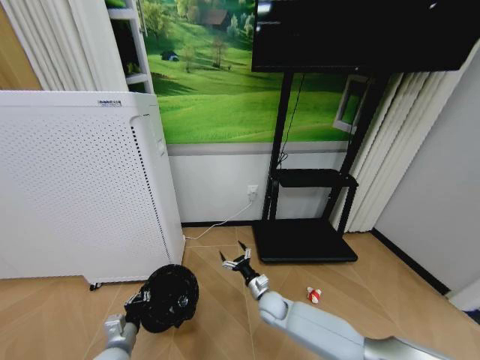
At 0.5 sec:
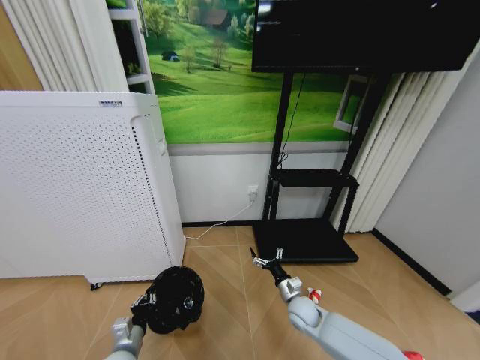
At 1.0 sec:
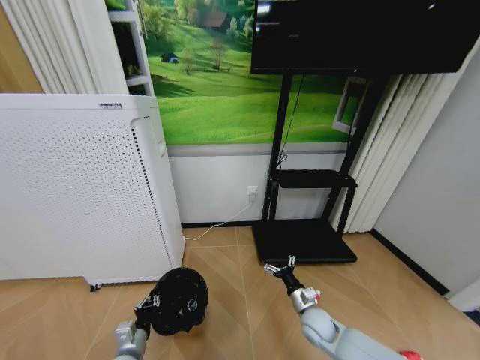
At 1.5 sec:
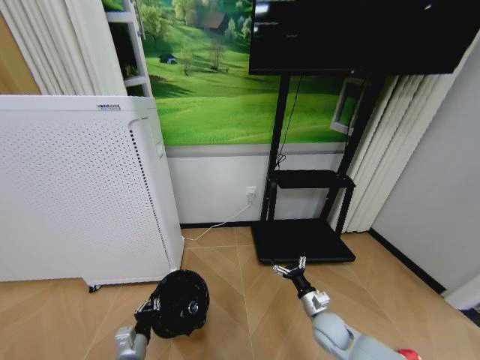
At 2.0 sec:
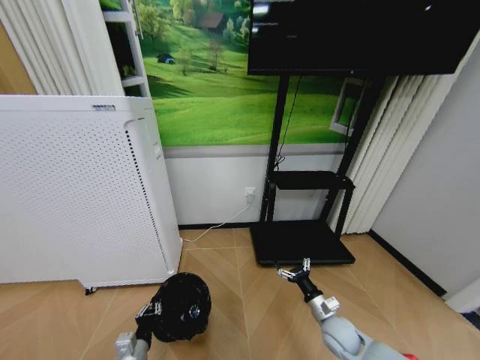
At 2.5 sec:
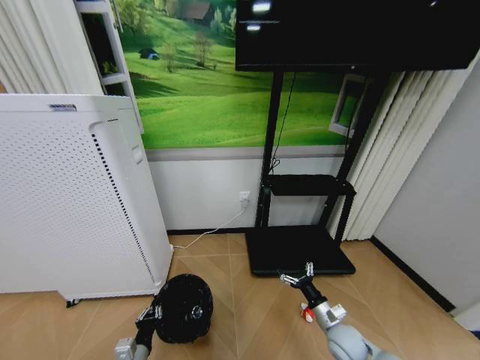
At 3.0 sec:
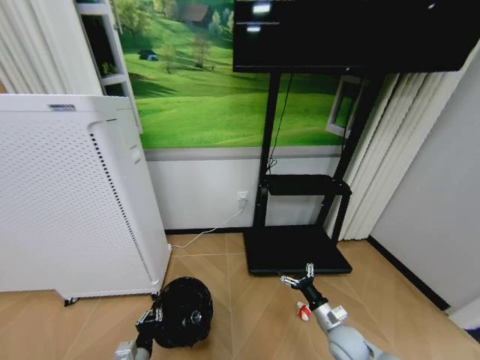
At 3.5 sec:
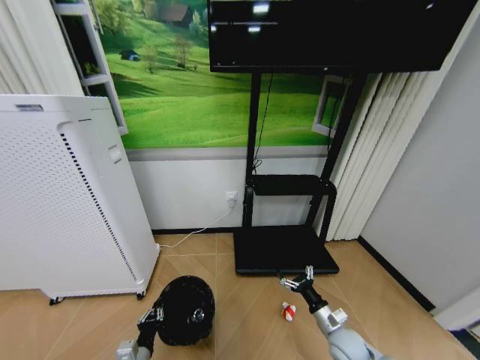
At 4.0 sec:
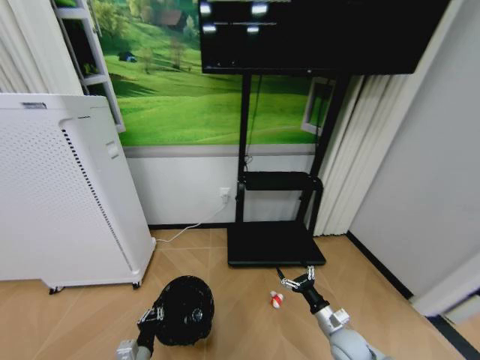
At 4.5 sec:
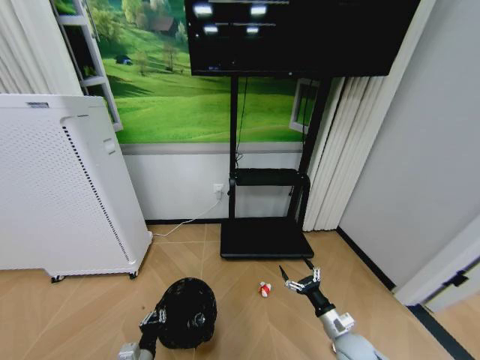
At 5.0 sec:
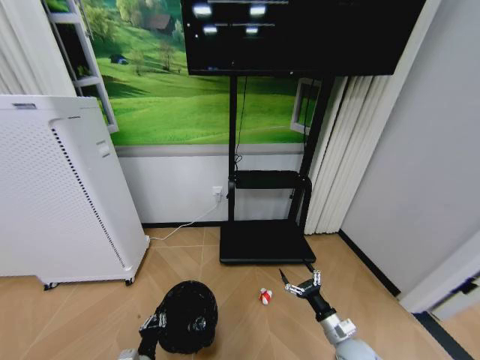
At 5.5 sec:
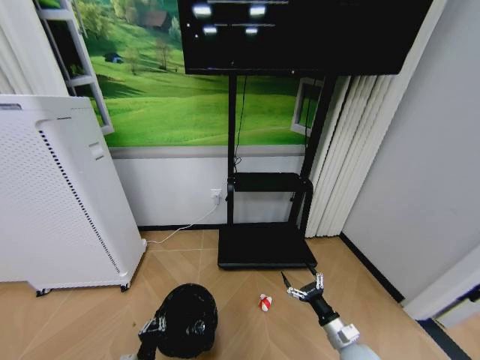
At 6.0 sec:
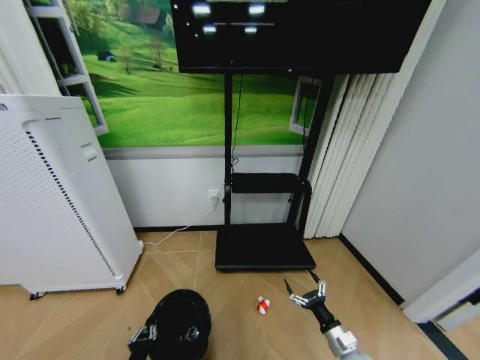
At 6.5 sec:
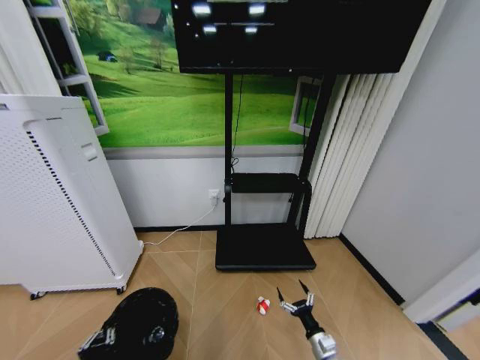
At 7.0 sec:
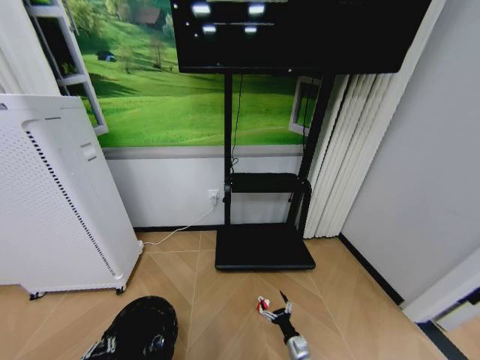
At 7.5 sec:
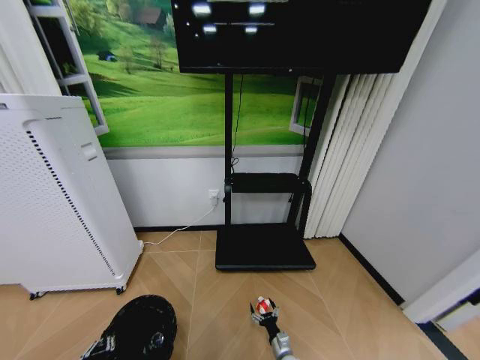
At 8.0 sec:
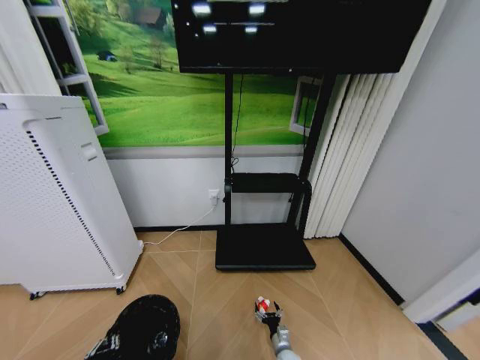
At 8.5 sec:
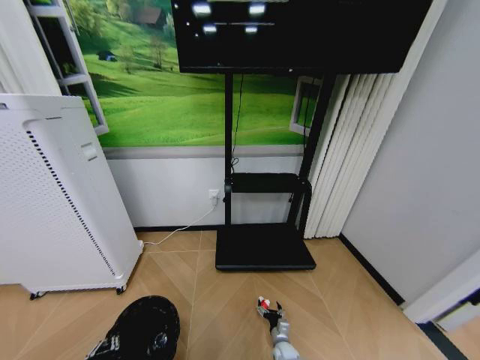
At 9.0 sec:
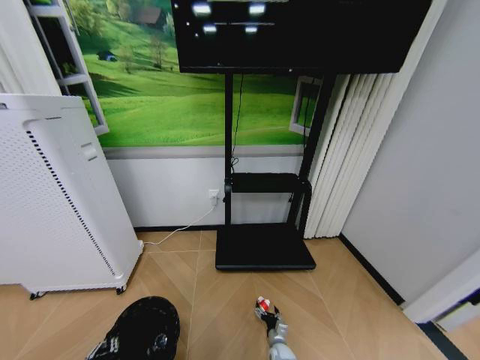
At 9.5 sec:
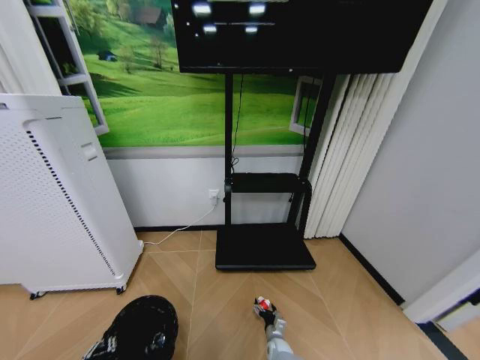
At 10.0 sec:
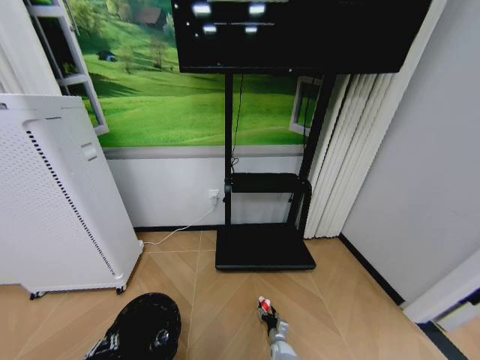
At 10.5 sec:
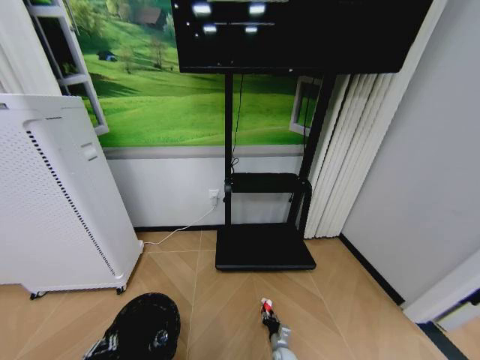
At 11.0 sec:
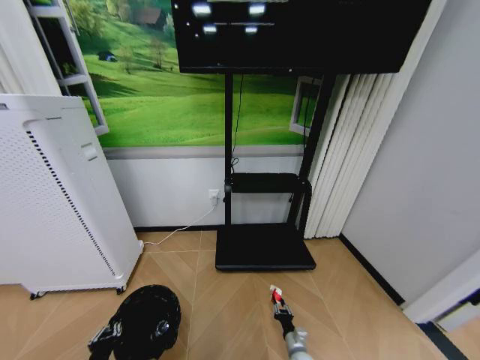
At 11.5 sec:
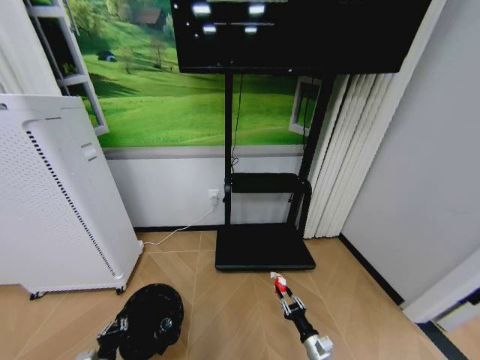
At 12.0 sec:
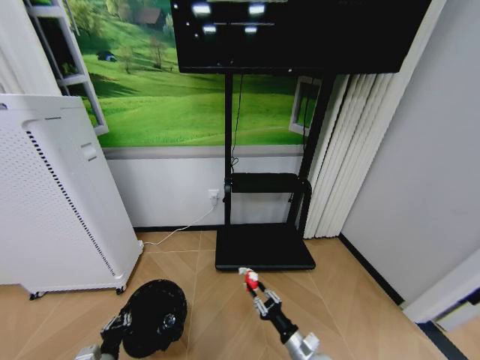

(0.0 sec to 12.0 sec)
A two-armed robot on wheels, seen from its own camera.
Task of the whole recording: Pick up the trash bin and place the garbage on the floor into it.
0.0 sec - 2.0 sec: The left gripper ends up approximately 5 cm from where it was, while the right gripper moves to the right, about 20 cm.
4.0 sec - 6.0 sec: The left gripper ends up some 5 cm from where it was. Meanwhile the right gripper changes place by some 5 cm.
6.0 sec - 8.0 sec: The left gripper shifts roughly 5 cm to the left; the right gripper shifts about 25 cm downward and to the left.
10.0 sec - 12.0 sec: The right gripper travels upward by roughly 25 cm, and closes its fingers, while the left gripper heads forward, covering some 5 cm.

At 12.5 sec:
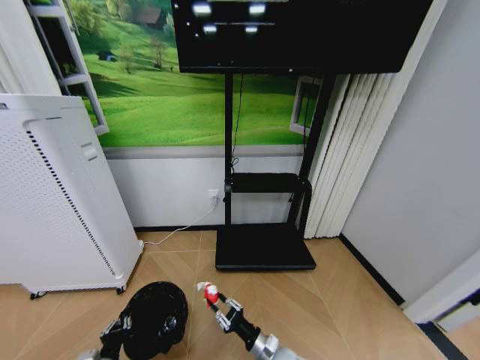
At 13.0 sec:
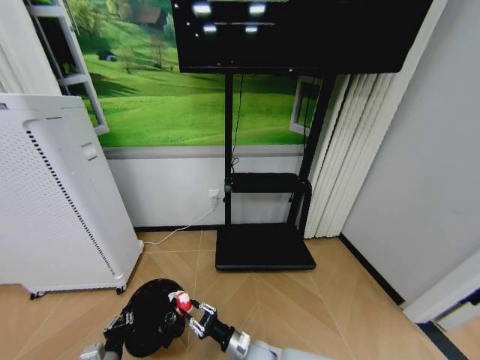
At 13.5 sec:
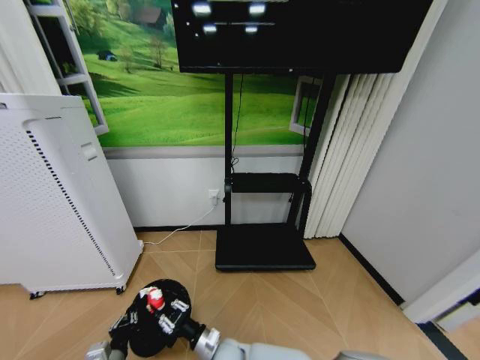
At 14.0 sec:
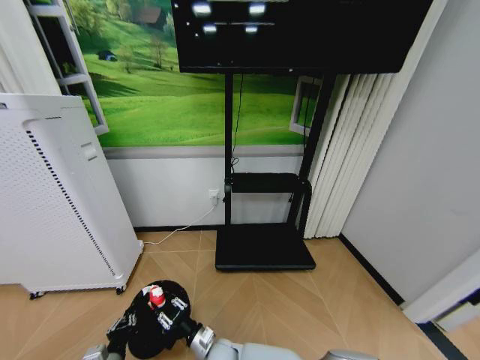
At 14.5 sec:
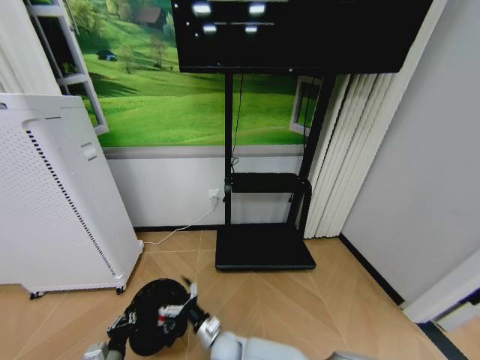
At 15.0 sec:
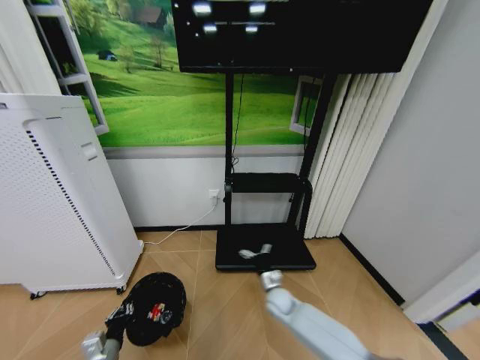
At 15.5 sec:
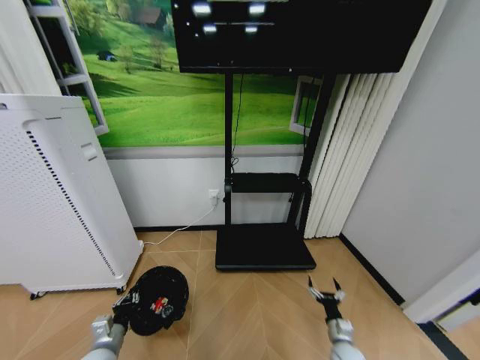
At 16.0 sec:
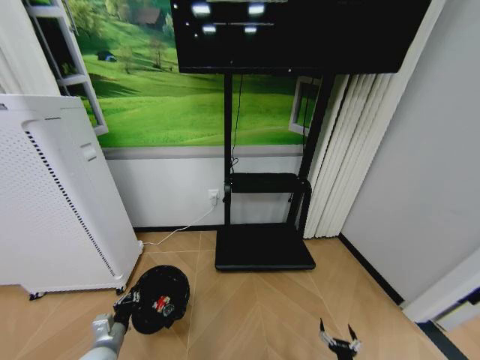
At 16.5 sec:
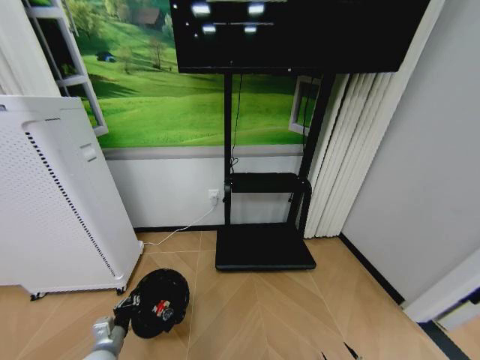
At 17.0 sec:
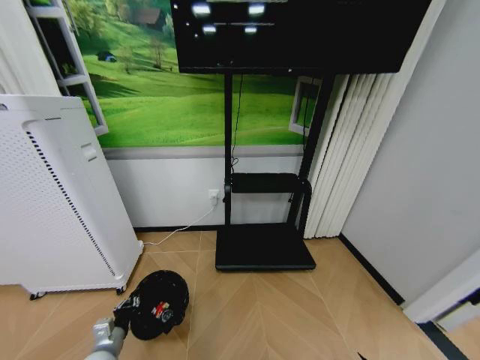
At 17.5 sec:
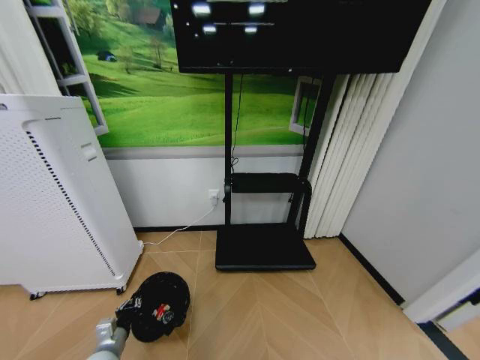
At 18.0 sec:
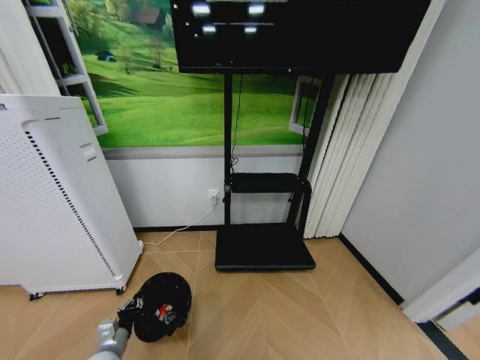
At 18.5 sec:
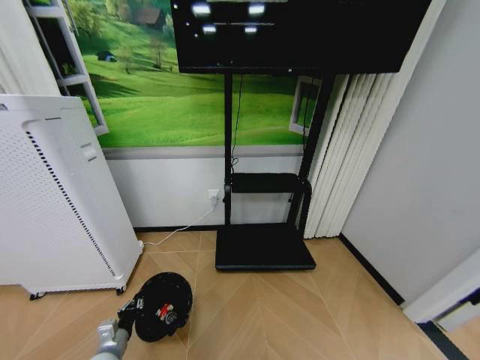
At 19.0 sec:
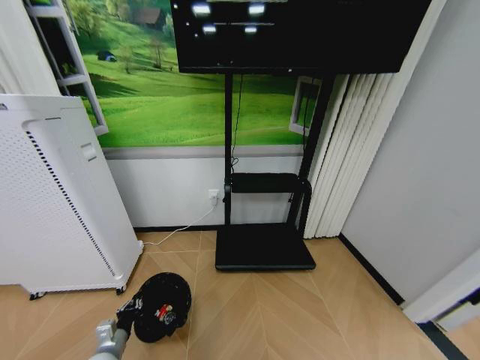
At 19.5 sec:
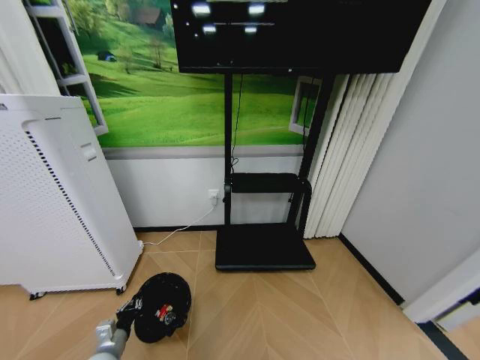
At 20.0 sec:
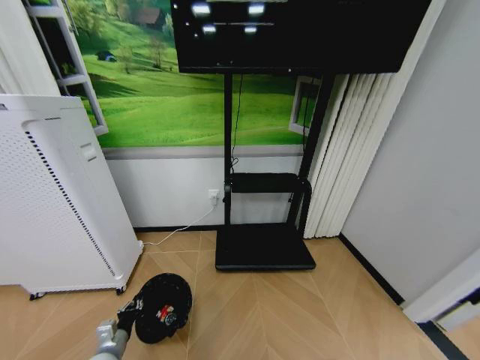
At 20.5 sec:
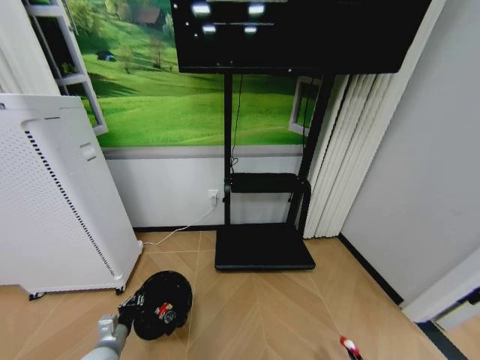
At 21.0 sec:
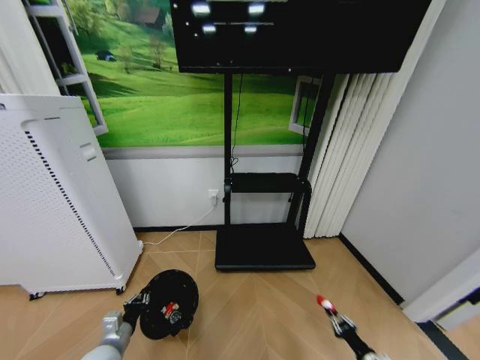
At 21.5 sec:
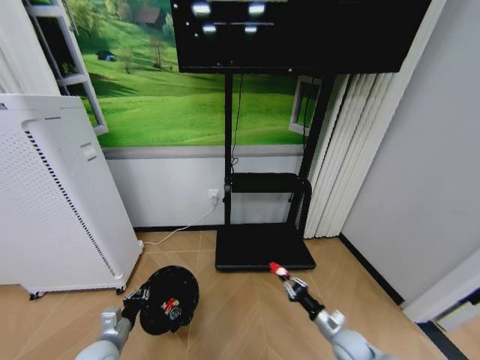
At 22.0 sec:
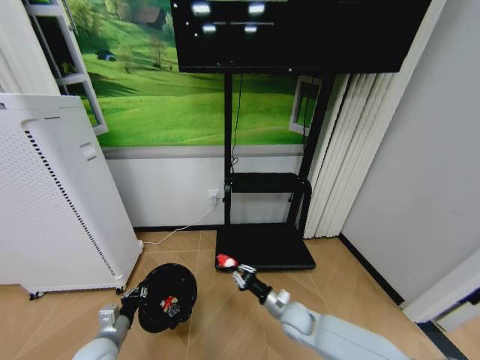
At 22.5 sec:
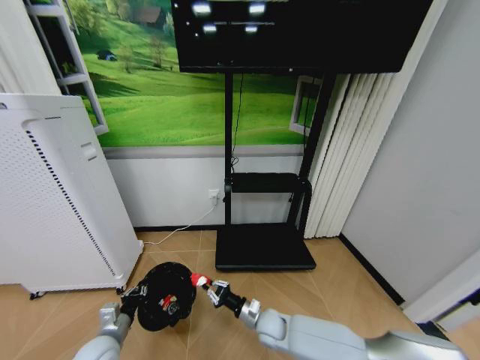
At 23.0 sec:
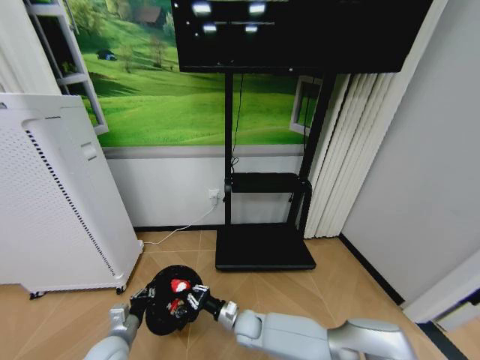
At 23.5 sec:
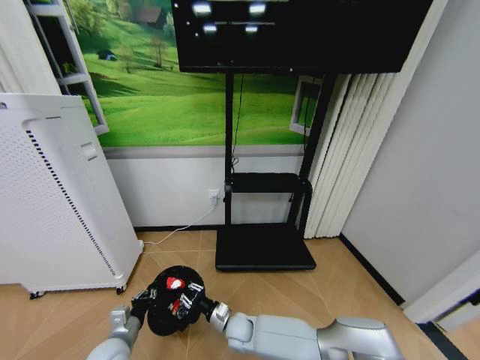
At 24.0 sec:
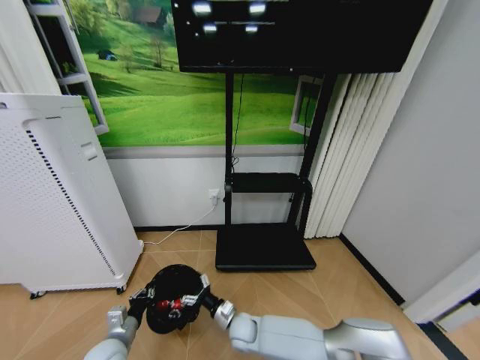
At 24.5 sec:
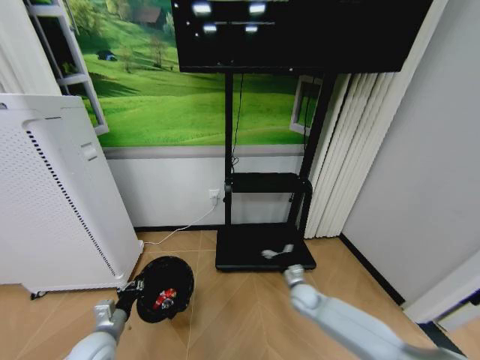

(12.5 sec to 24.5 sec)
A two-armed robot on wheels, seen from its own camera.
Task of the whole recording: Pick up the trash bin and place the garbage on the floor into it.
12.5 sec - 14.5 sec: The right gripper moves to the left, approximately 20 cm, and opens its fingers.
14.5 sec - 16.5 sec: The left gripper travels forward by approximately 5 cm. The right gripper moves to the right, approximately 50 cm.
16.5 sec - 18.5 sec: The right gripper heads downward and backward, covering approximately 10 cm.
20.5 sec - 22.5 sec: The right gripper moves to the left, forward and upward, roughly 50 cm.
22.5 sec - 24.5 sec: The right gripper moves to the right and forward, about 15 cm, and opens.

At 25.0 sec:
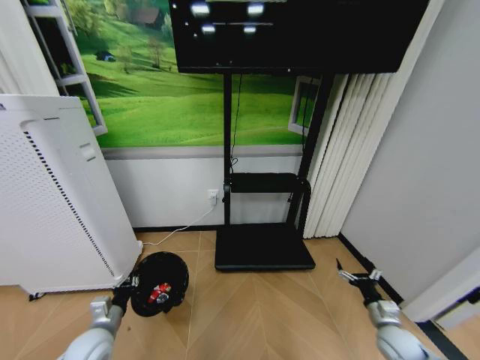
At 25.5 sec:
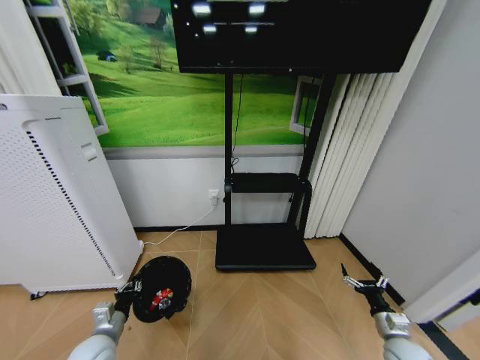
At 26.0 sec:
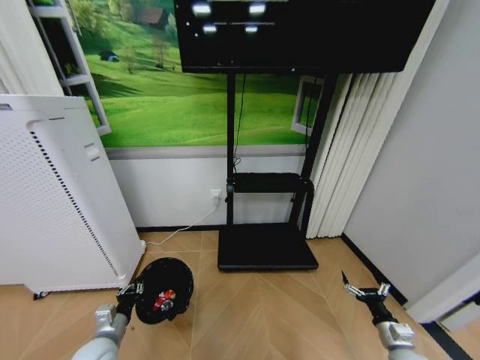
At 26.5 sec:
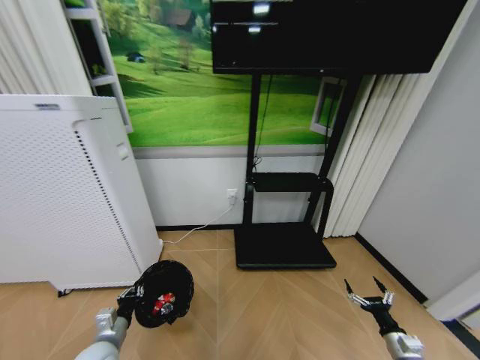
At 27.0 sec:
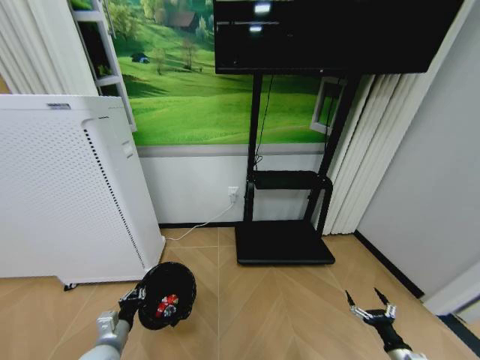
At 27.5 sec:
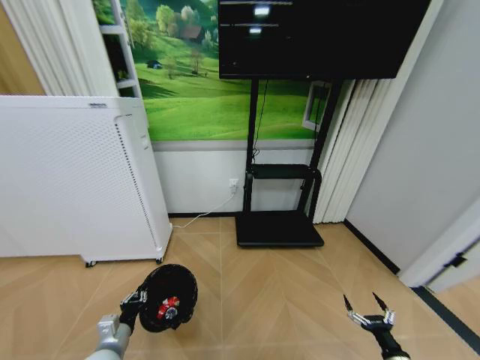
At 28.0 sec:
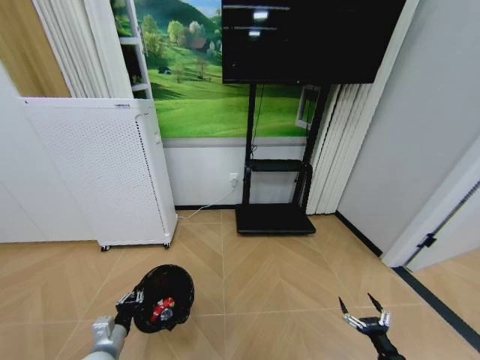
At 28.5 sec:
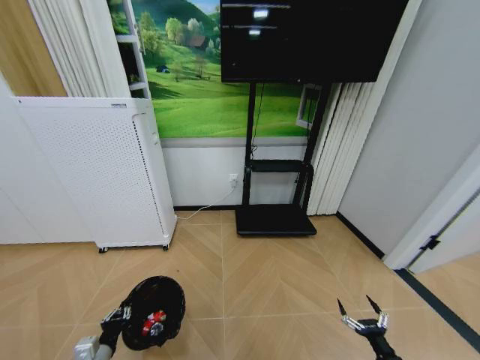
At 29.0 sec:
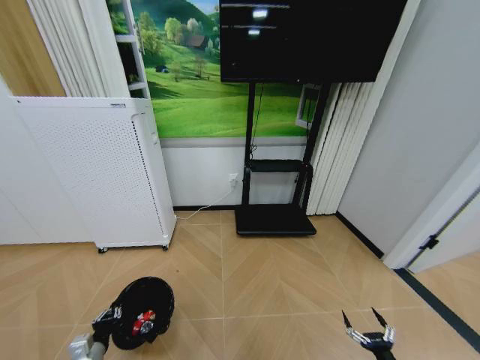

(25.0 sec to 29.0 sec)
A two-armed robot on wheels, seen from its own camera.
Task of the whole recording: Pick up the trash bin and place the garbage on the floor into it.
25.0 sec - 27.0 sec: The right gripper moves backward and downward, some 10 cm.
27.0 sec - 29.0 sec: The left gripper moves to the left, about 5 cm. Meanwhile the right gripper moves backward, approximately 5 cm.
